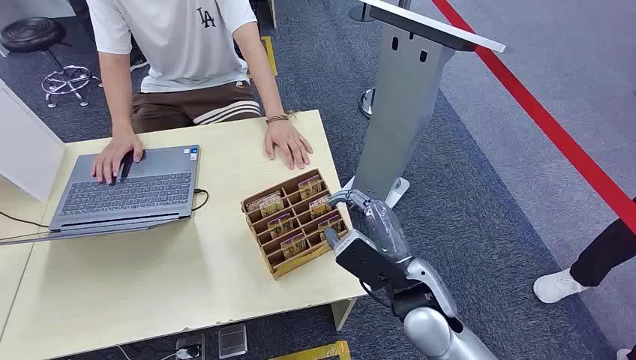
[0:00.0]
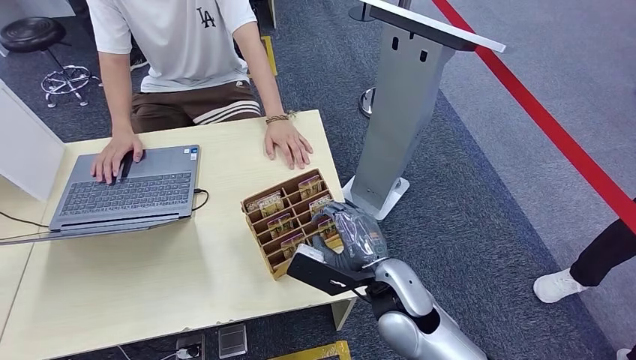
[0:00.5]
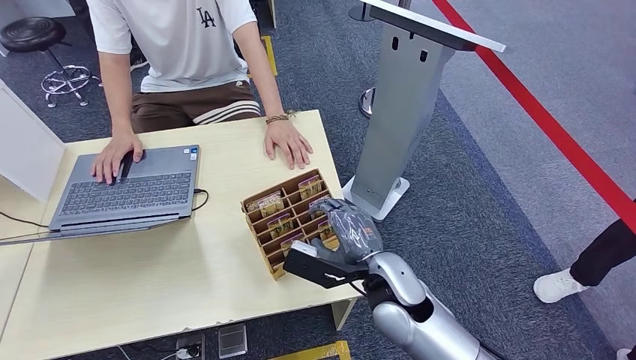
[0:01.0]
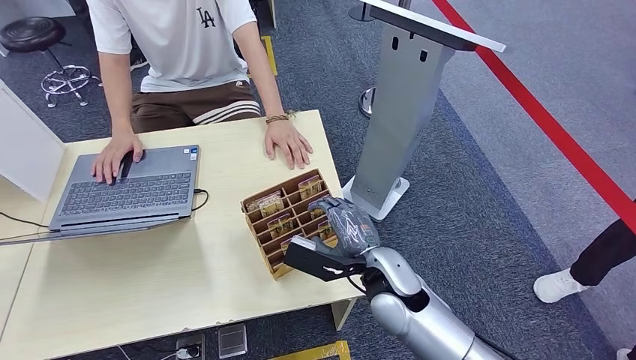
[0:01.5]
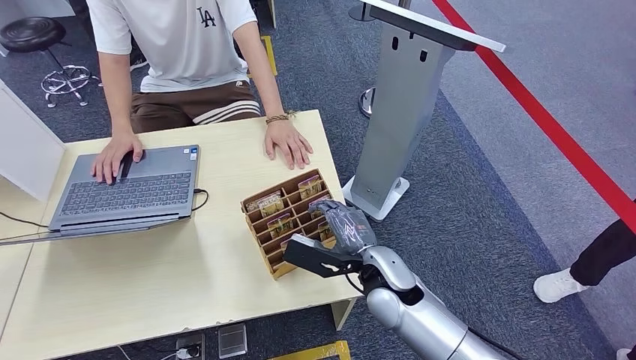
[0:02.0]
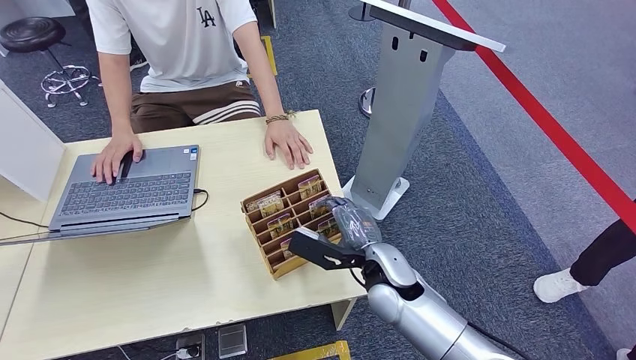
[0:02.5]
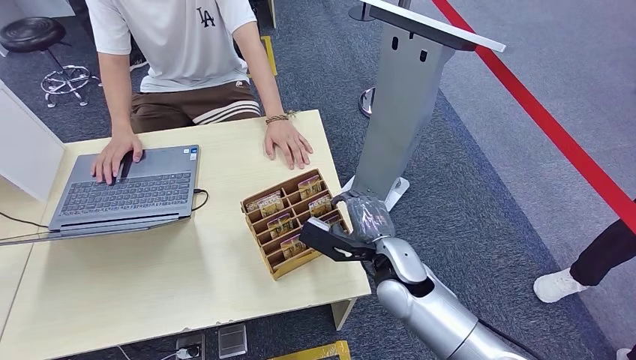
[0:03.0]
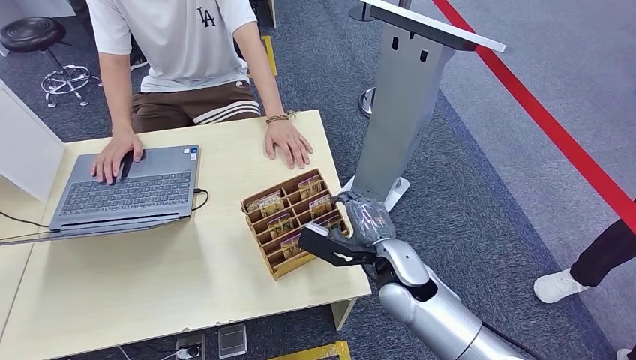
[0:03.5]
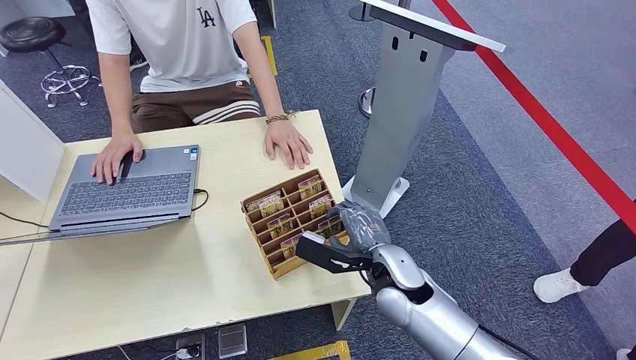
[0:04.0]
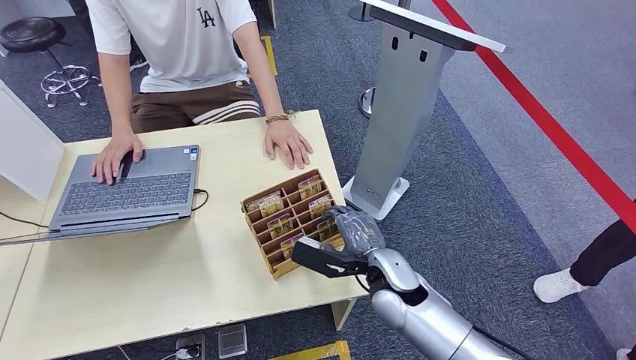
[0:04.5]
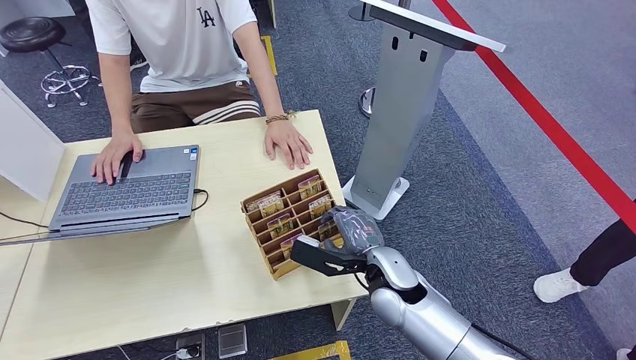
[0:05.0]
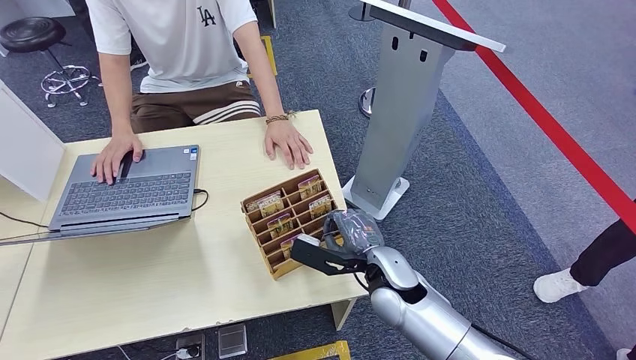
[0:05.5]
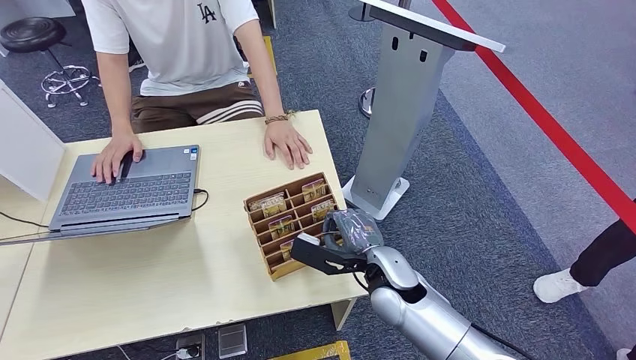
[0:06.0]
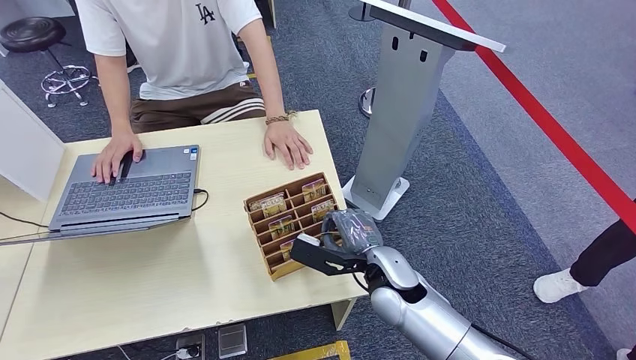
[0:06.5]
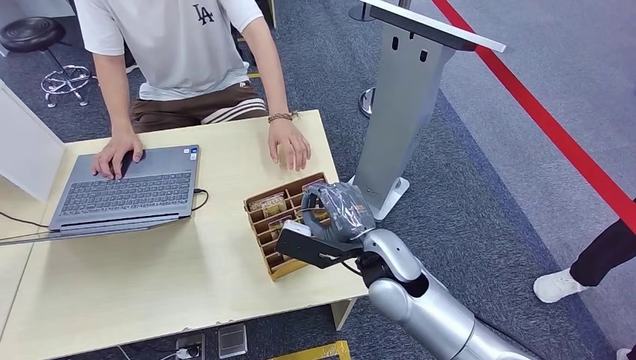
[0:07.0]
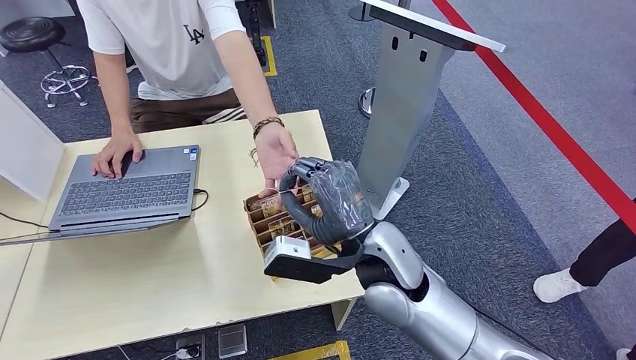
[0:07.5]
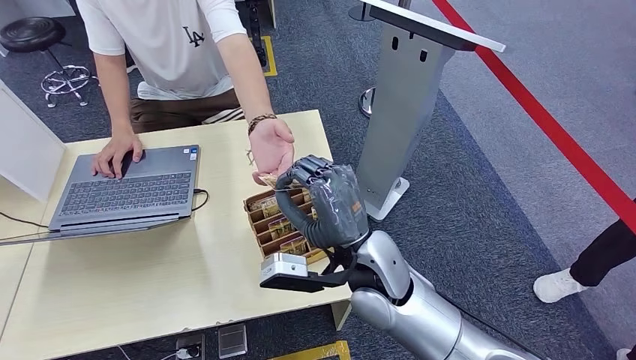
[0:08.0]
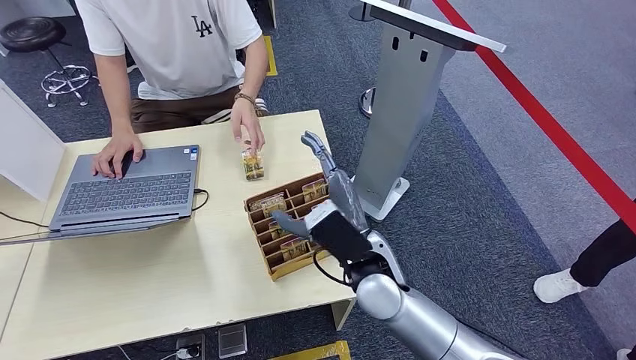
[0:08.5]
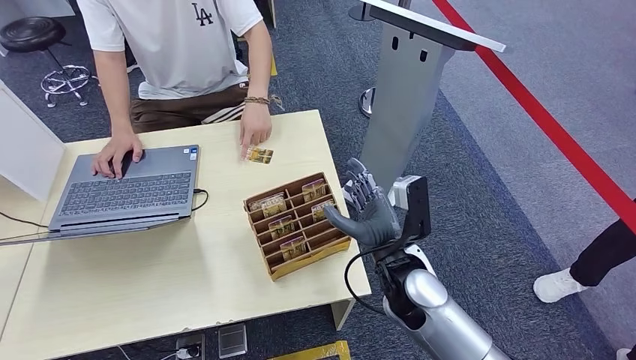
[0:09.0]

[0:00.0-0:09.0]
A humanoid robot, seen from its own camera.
Step, 0:00.0 to 0:07.0: Pick up the key card from the card box.
Step, 0:07.5 to 0:09.0: Hand the key card to the target.
0:02.0 to 0:04.5: The hands stay close to where they were, moving slightly.
0:04.5 to 0:07.0: The right hand shifts some 5 cm upward.
